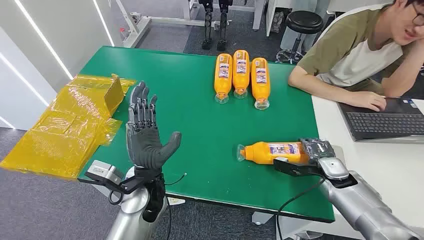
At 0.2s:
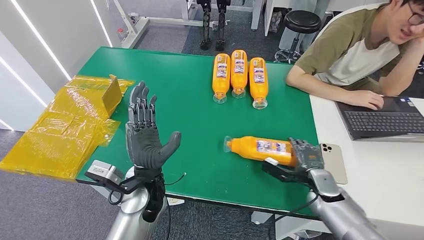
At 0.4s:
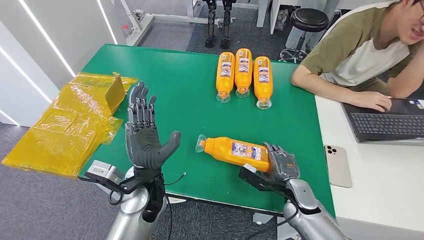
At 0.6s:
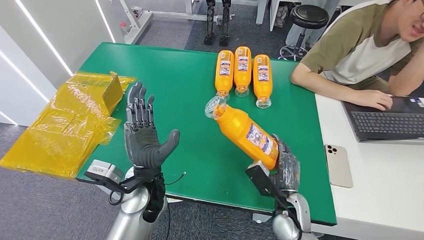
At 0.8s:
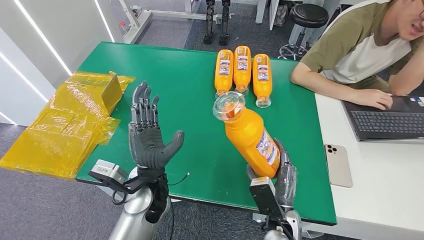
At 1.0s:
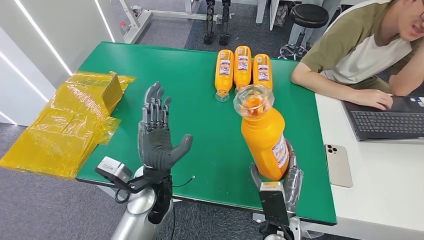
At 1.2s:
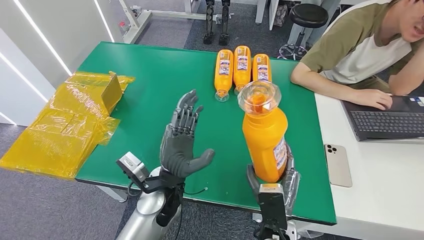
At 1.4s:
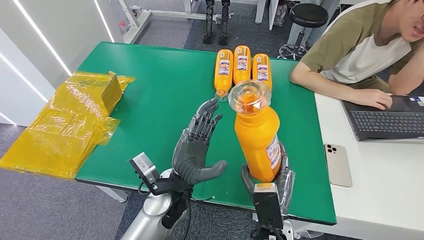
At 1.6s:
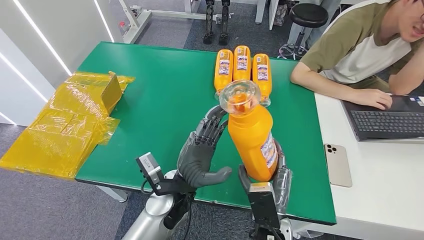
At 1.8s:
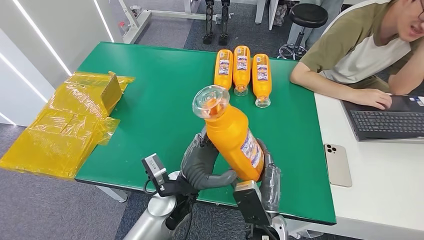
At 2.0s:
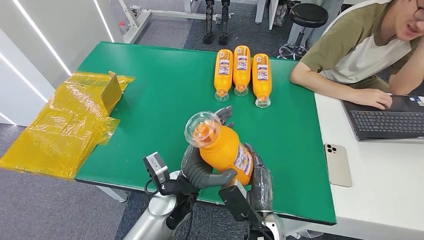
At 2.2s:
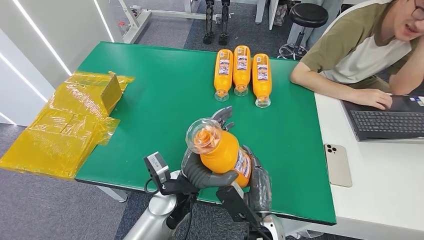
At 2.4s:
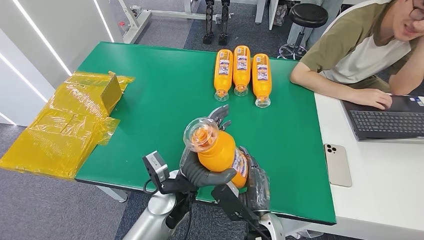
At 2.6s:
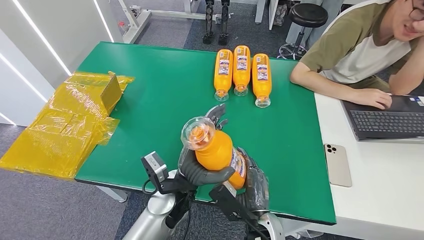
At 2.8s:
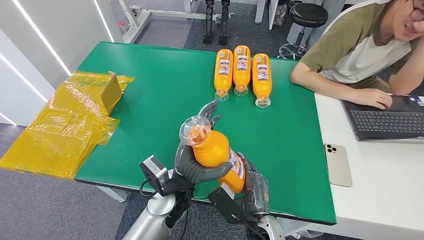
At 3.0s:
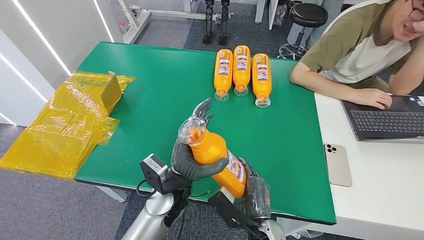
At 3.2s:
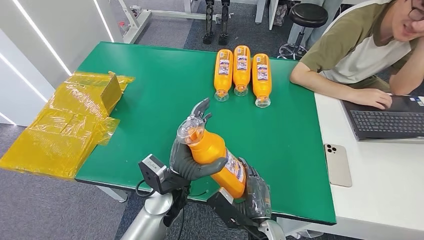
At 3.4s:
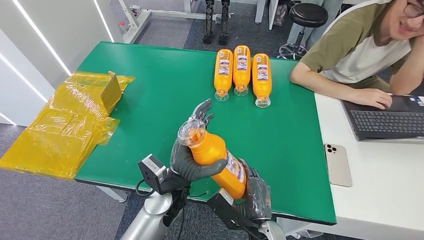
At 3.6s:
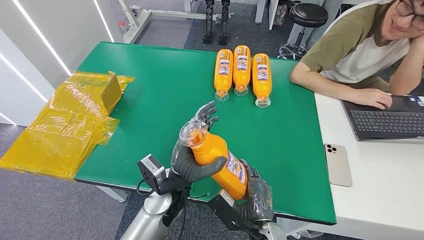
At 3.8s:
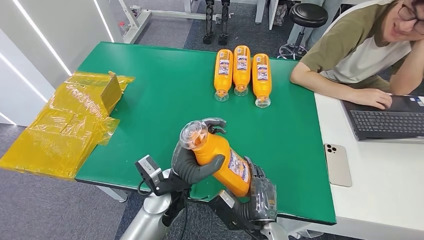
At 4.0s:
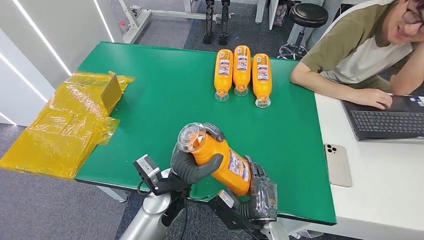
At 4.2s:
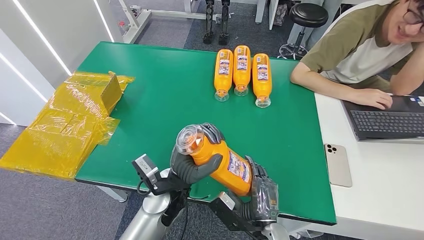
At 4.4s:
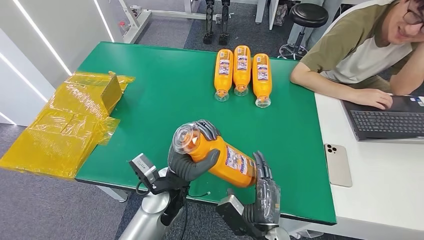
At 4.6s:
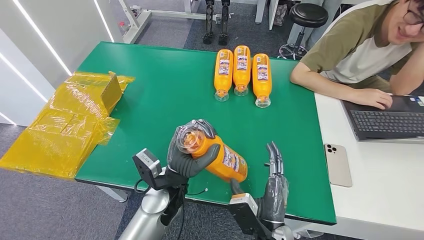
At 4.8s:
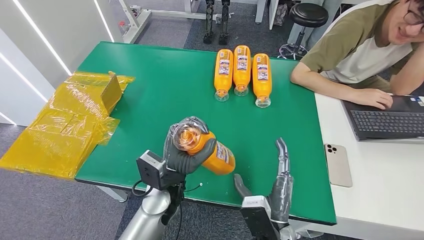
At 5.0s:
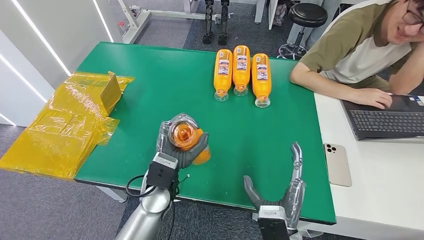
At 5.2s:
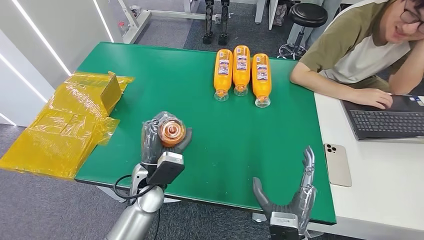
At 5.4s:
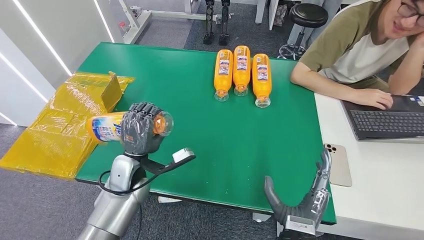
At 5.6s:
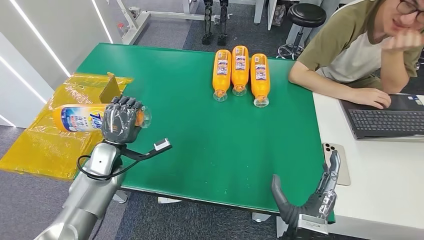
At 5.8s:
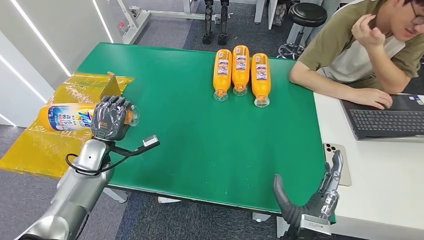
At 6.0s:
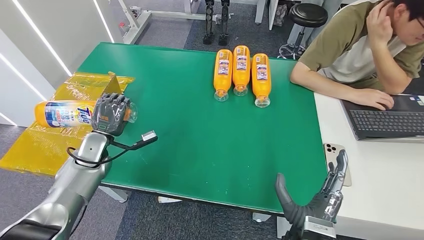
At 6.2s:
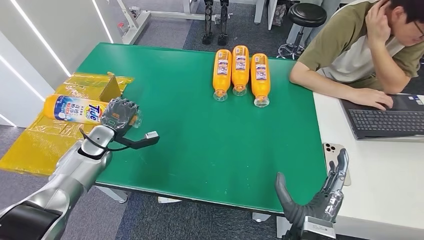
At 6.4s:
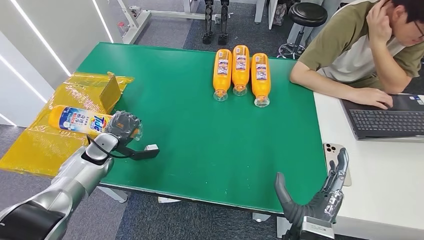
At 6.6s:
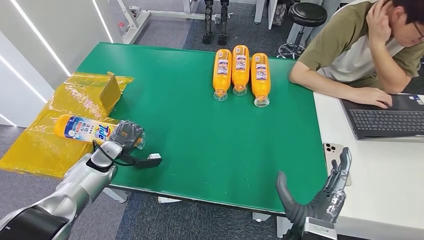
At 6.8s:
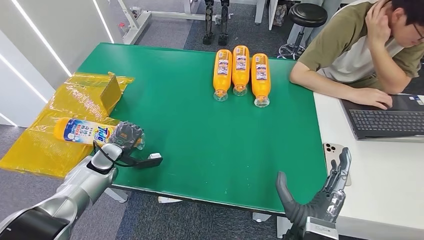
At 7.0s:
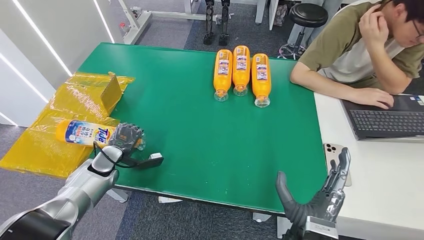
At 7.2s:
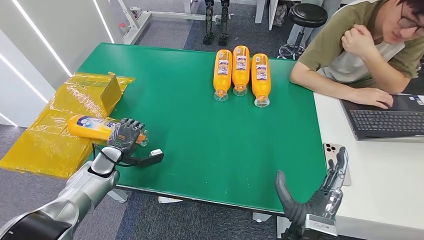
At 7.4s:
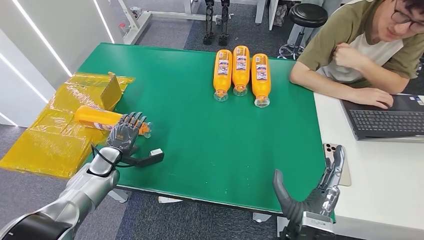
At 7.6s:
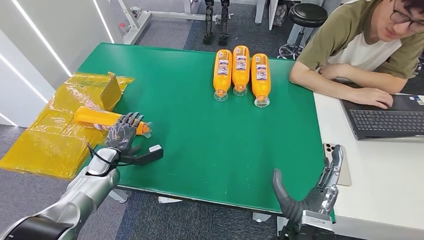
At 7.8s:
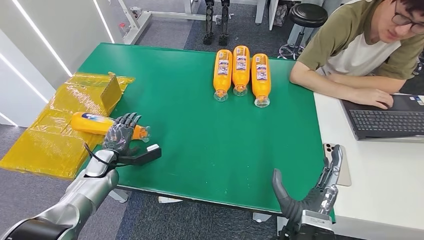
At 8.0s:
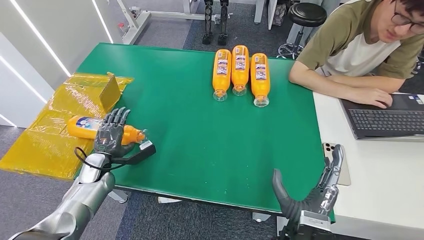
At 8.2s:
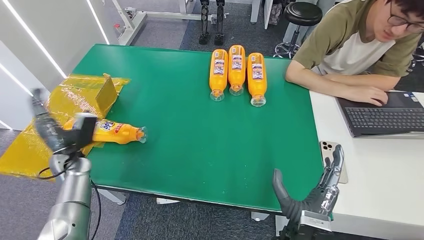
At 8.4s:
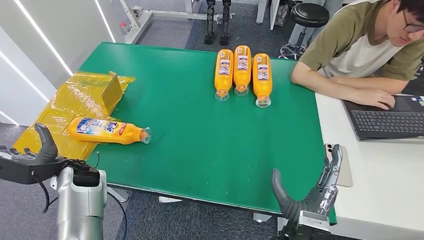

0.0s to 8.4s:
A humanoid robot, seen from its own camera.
Step, 0.0s to 2.4s: Pick up the bottle from the table.
Step, 2.6s to 8.4s: Turn the bottle to the front side.
2.8s to 4.2s: There are only small adjustments of the hands.
5.6s to 7.0s: The left hand is displaced to the left and downward by some 10 cm.
7.0s to 8.4s: The left hand travels upward by about 5 cm.
